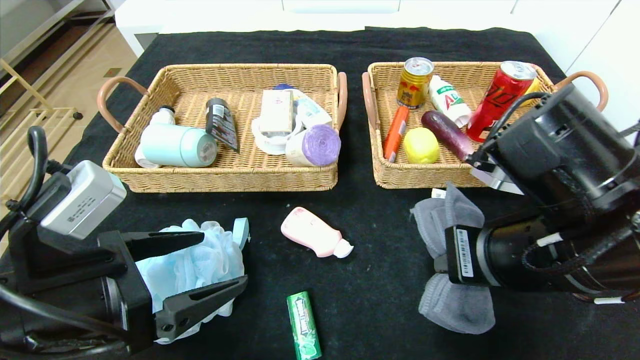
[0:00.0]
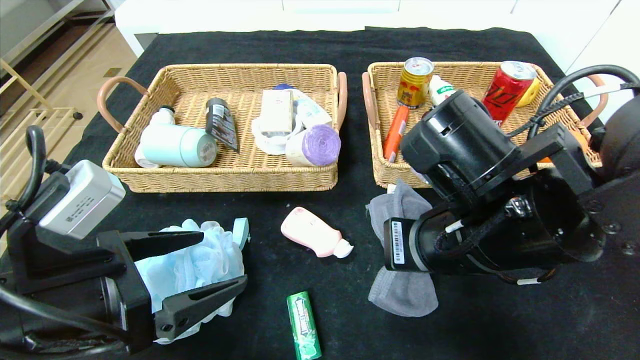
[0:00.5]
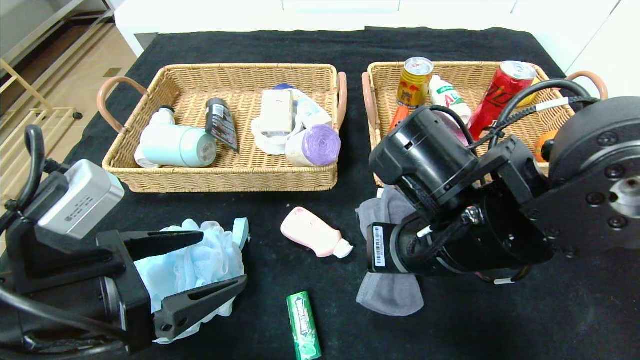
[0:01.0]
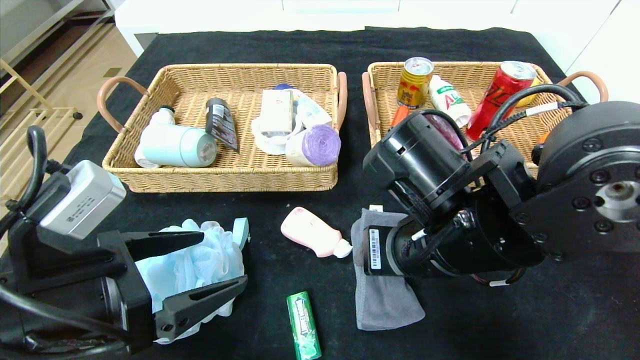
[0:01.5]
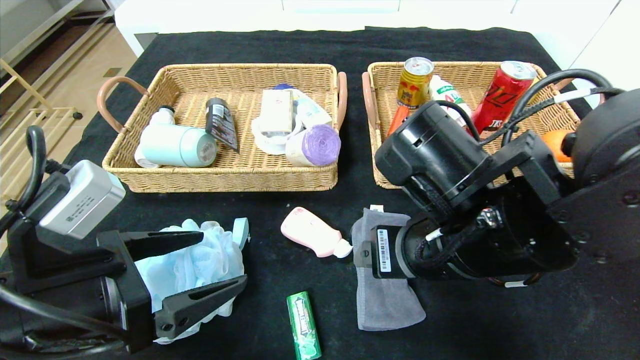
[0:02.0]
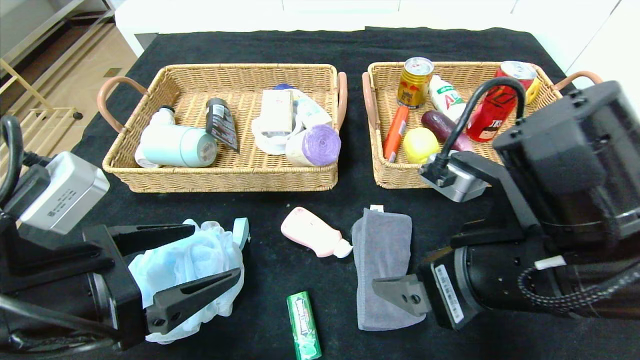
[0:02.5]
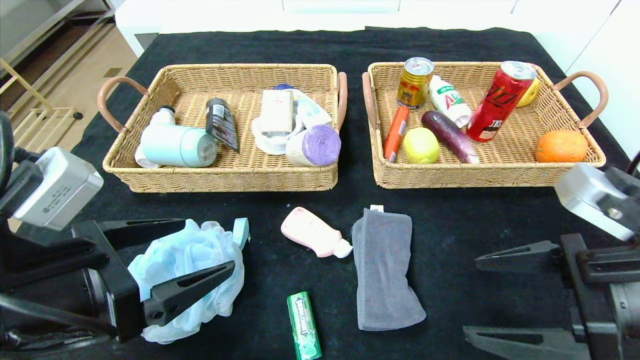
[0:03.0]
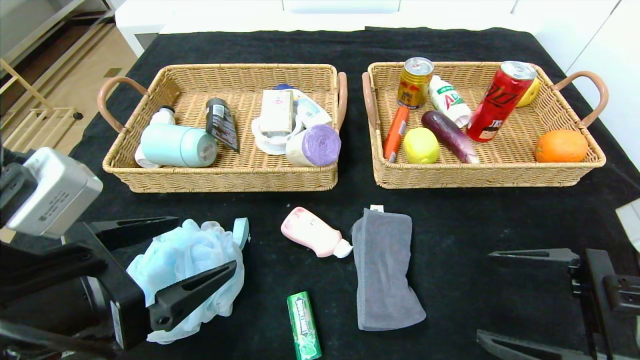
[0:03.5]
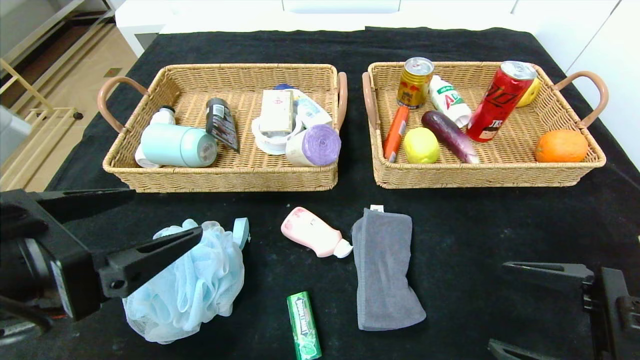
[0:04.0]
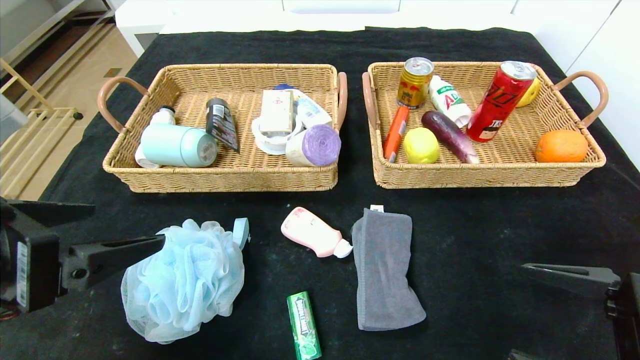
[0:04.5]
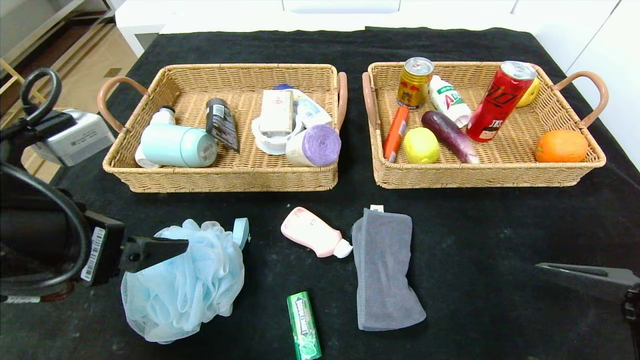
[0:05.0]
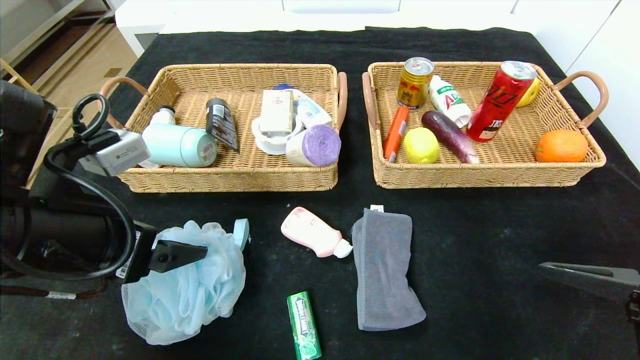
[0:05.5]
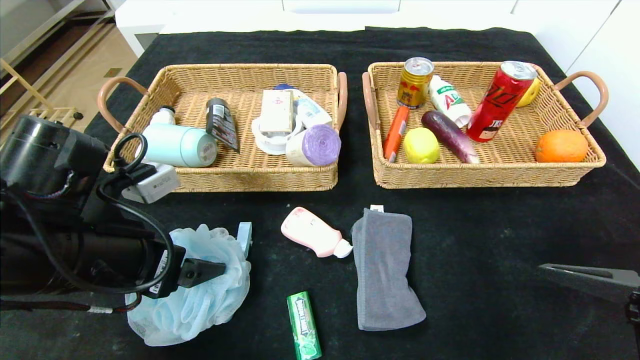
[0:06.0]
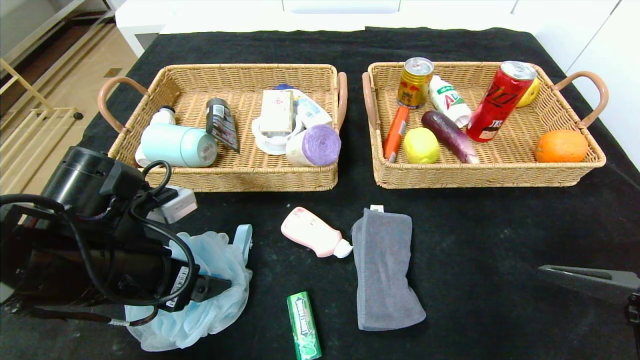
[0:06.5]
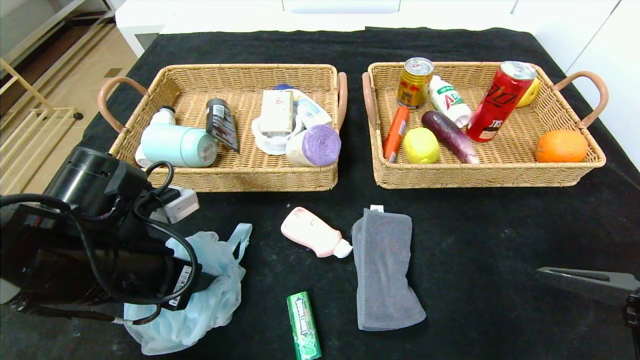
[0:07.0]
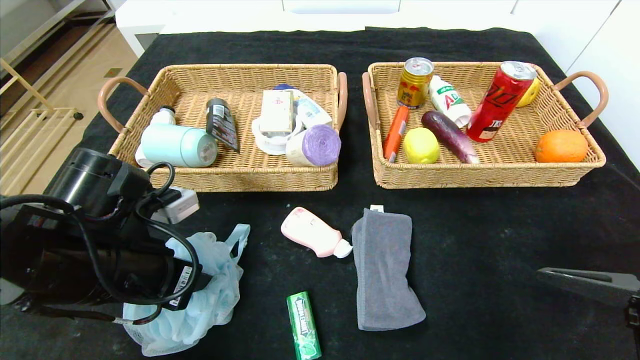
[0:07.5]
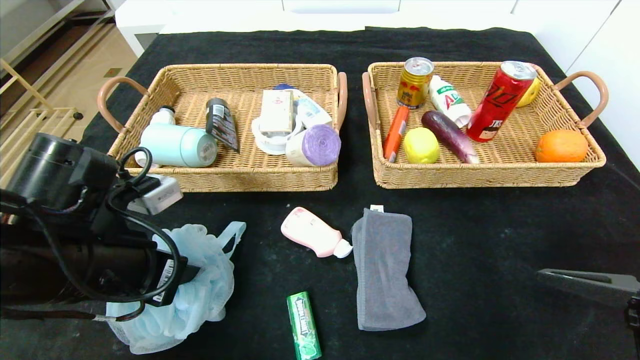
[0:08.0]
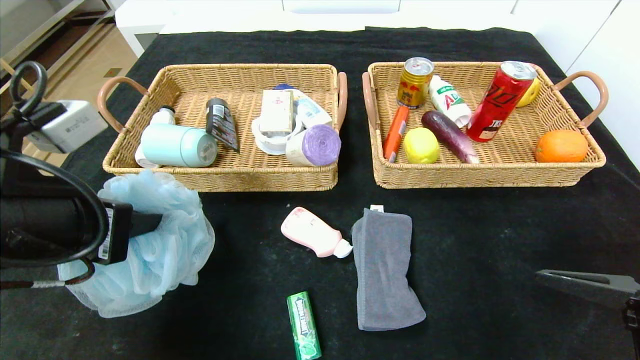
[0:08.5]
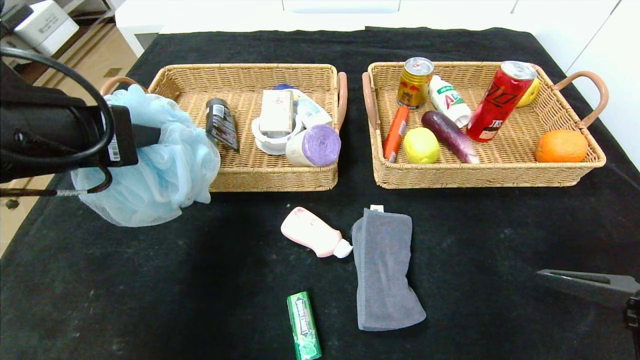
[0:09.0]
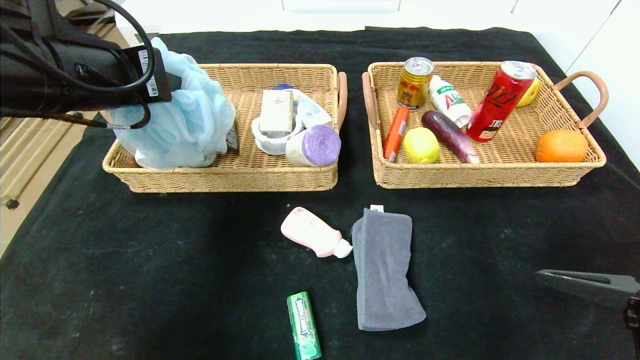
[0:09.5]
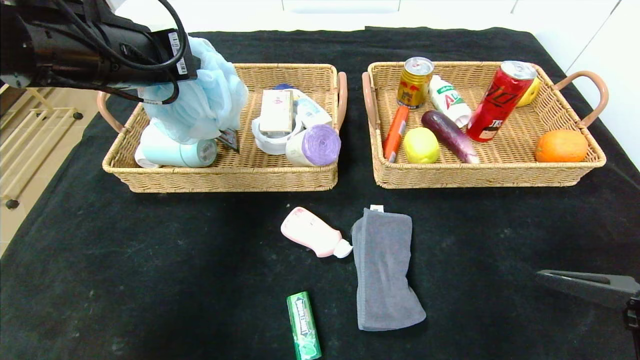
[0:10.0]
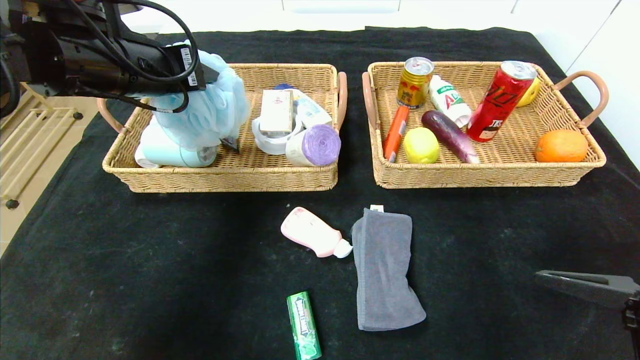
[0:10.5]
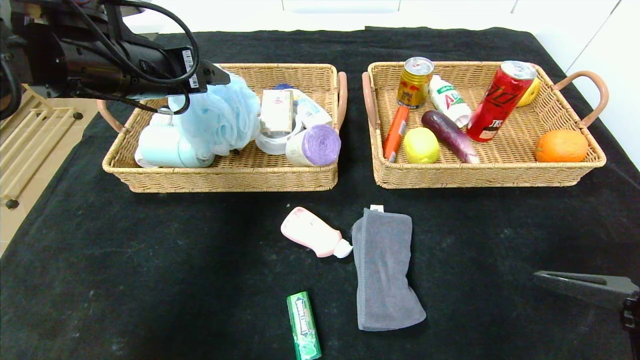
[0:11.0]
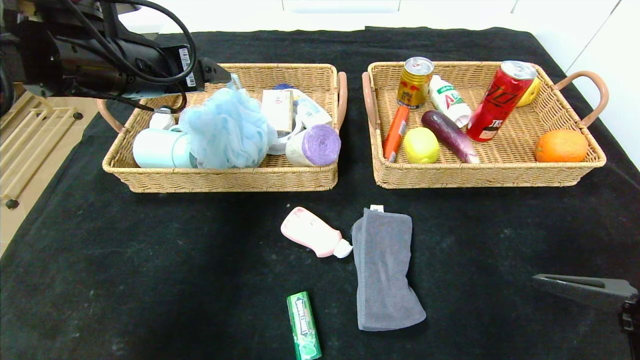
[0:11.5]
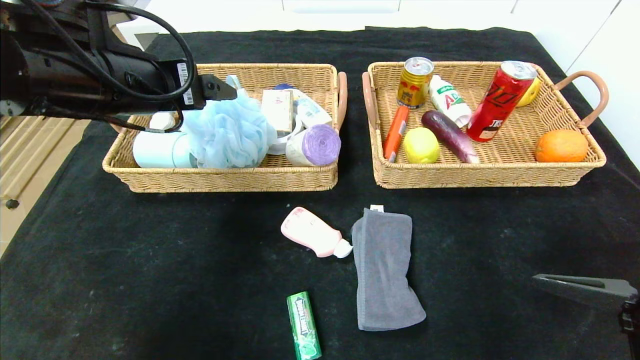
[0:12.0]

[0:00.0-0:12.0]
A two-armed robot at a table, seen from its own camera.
Step, 0:00.0 to 0:02.0: Place the gray towel in the center of the table.
Step, 0:02.5 to 0:11.0: Grasp the bath ball and put it in the left basket.
0:00.0 to 0:02.0: The right gripper moves to the left, roughly 5 cm, and opens up.
0:02.0 to 0:04.0: The left gripper travels upward by some 5 cm. The right gripper shifts about 20 cm to the right and backward.
0:04.0 to 0:06.0: The left gripper shifts about 10 cm forward.
0:06.0 to 0:08.0: The left gripper closes.
0:08.0 to 0:10.0: The left gripper travels upward and forward by roughly 20 cm.
0:10.0 to 0:12.0: The left gripper opens its fingers.

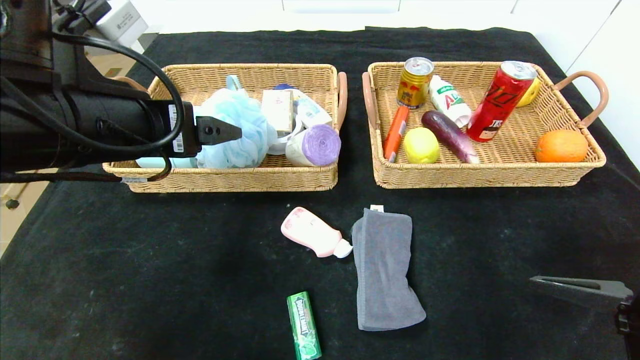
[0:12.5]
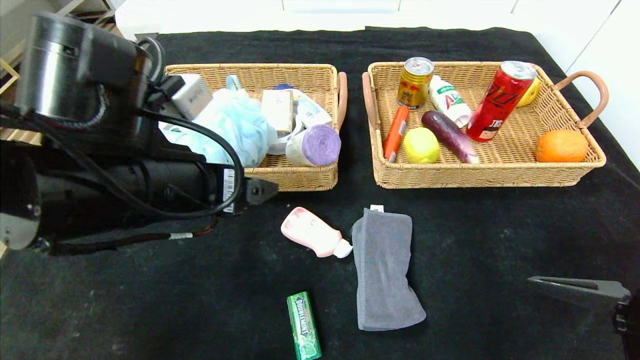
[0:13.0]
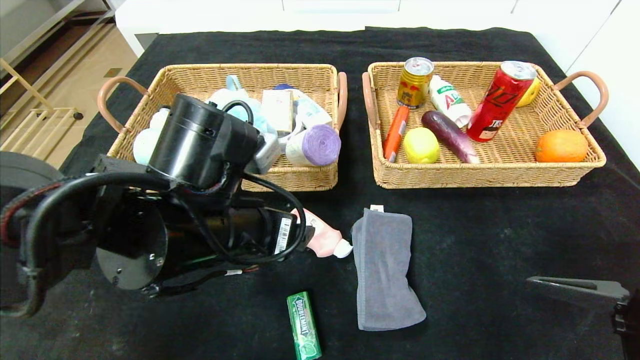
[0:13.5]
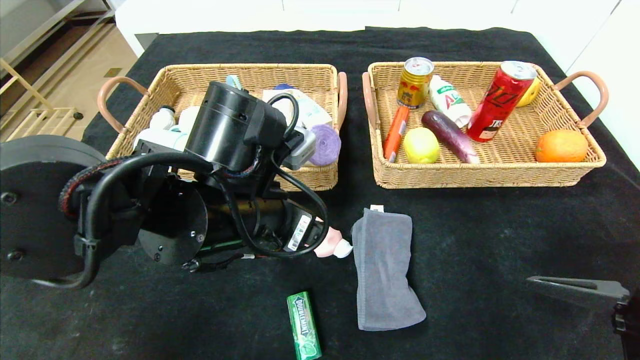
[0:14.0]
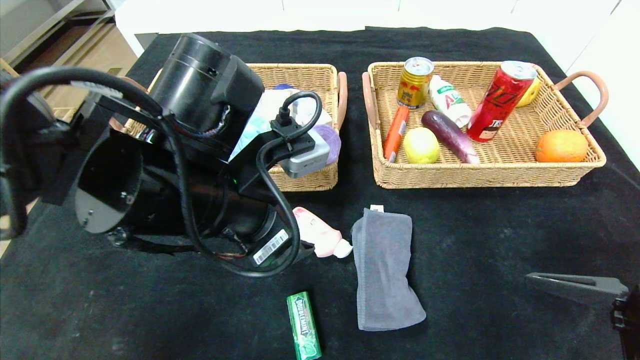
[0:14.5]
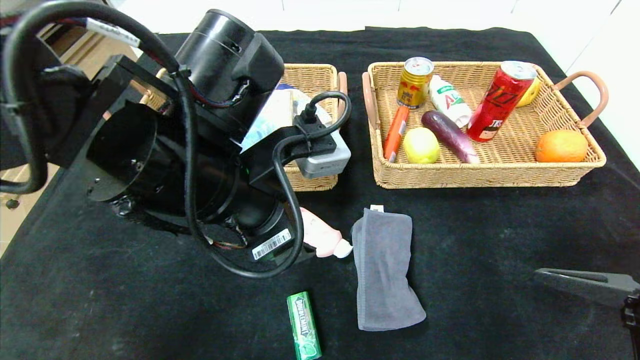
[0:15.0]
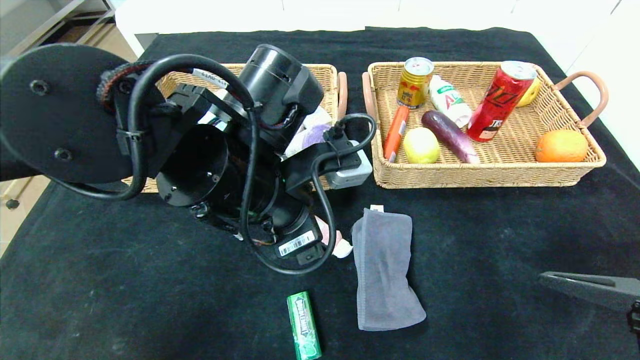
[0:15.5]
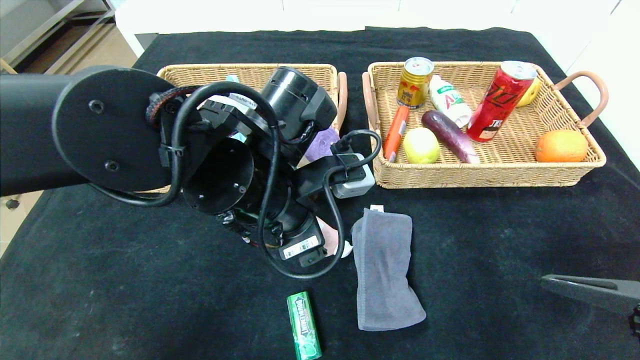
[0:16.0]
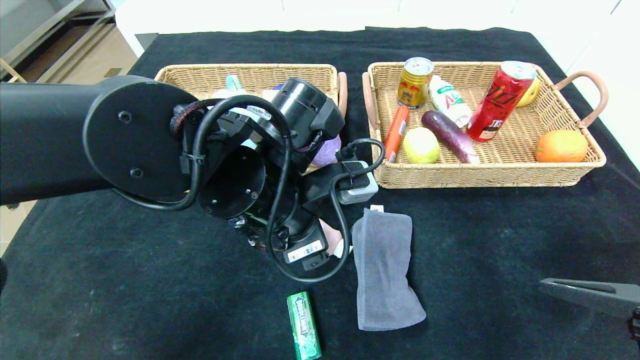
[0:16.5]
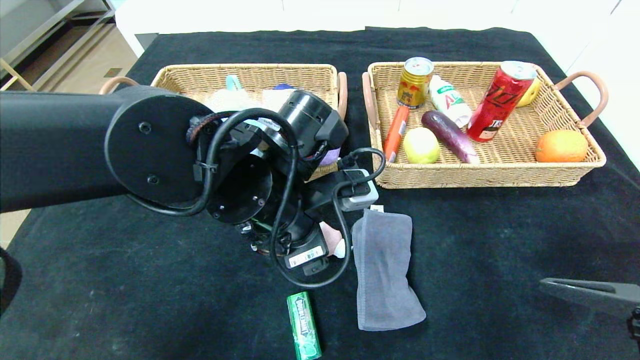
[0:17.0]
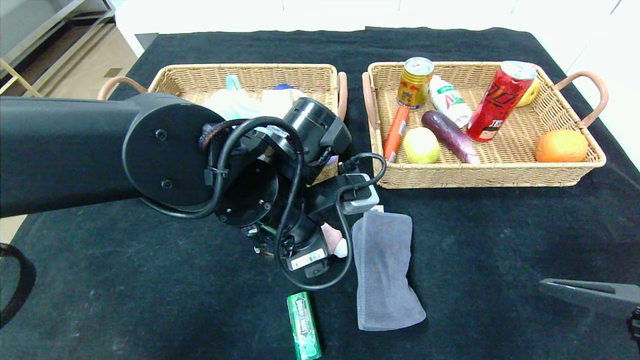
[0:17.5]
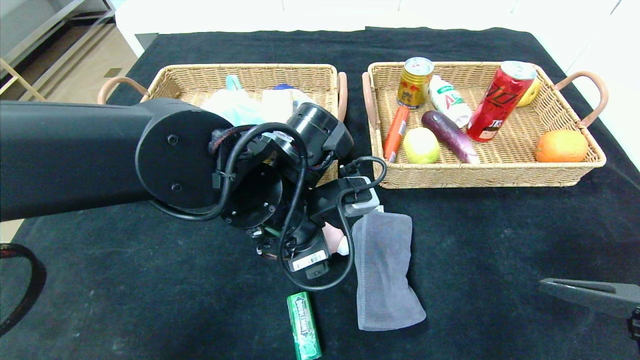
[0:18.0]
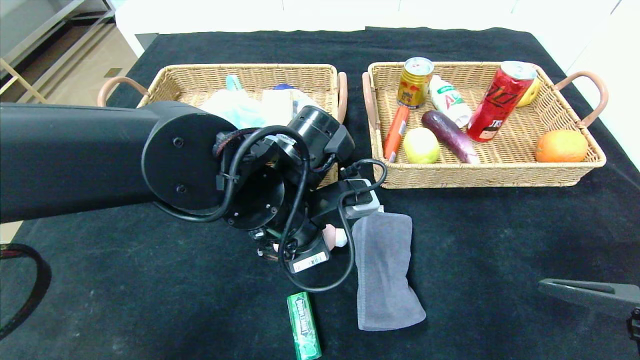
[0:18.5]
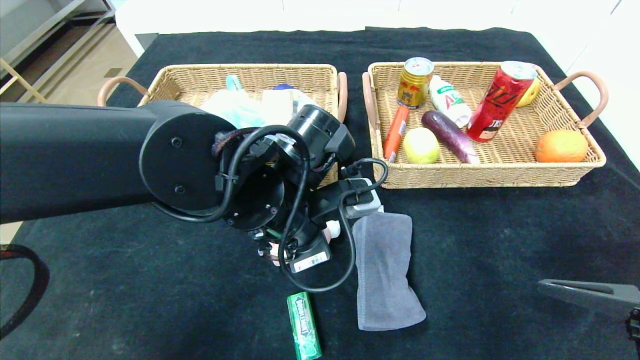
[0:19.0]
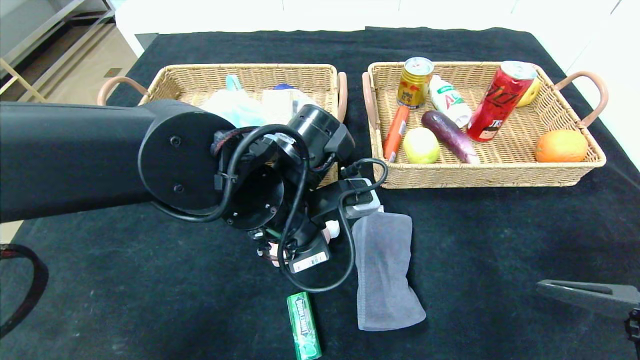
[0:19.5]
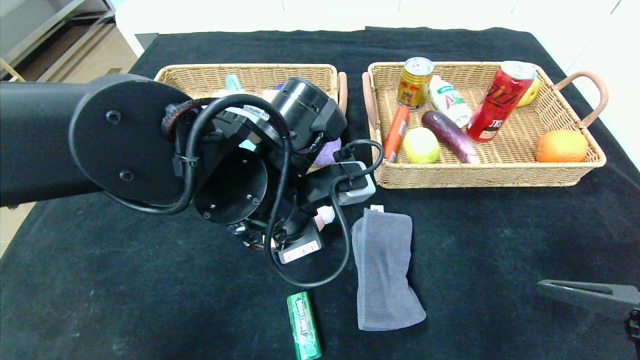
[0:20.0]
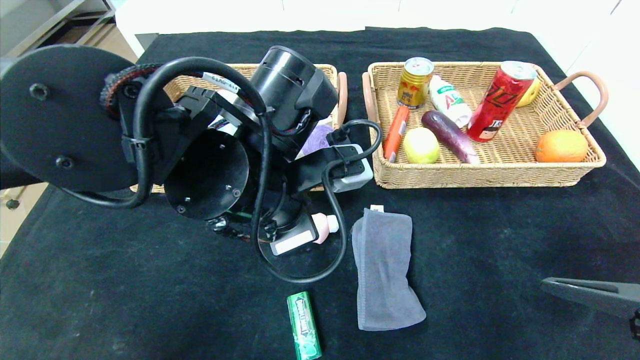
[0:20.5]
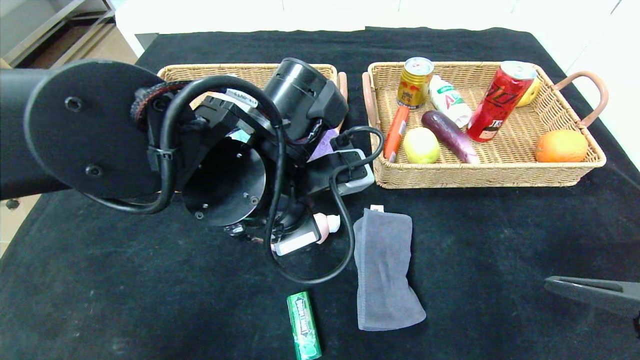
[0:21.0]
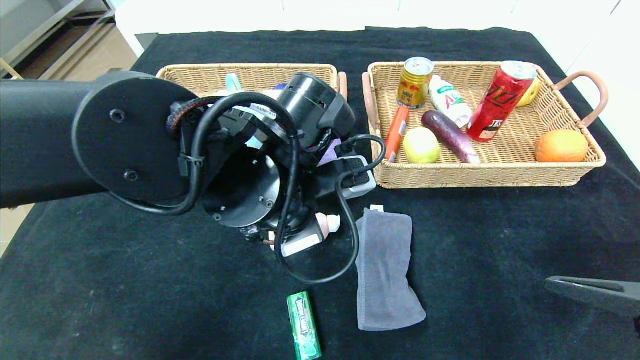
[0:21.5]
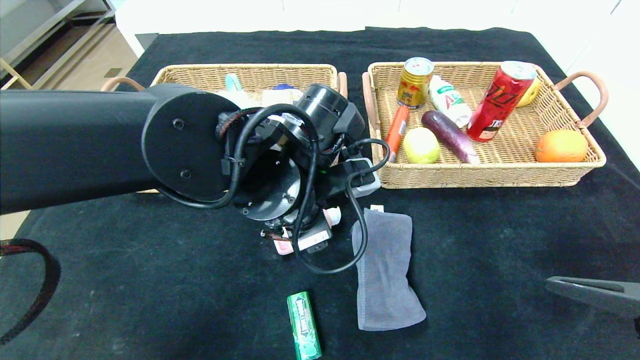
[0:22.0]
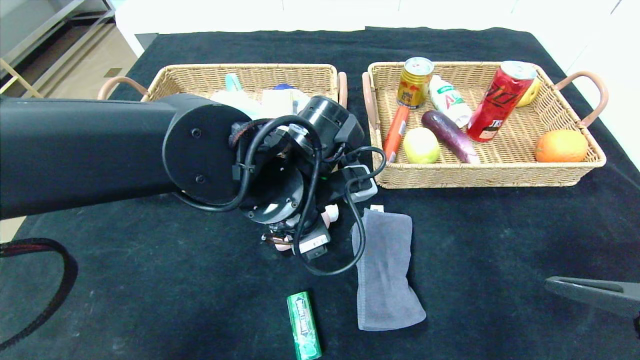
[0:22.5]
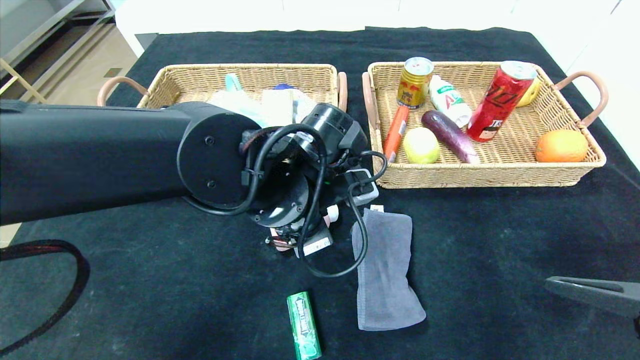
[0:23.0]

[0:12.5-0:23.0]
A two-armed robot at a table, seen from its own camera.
0:12.5 to 0:14.5: The left gripper is displaced to the right and downward by about 10 cm.
0:14.5 to 0:16.5: The left gripper shifts by approximately 5 cm.
0:16.5 to 0:19.0: The left gripper closes.
0:19.0 to 0:21.0: The grippers stay close to where they were, moving slightly.
0:21.0 to 0:23.0: The left gripper moves roughly 5 cm, and opens up.
